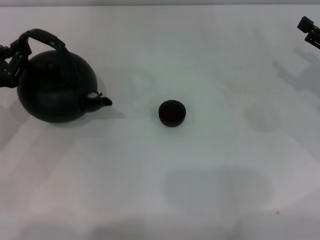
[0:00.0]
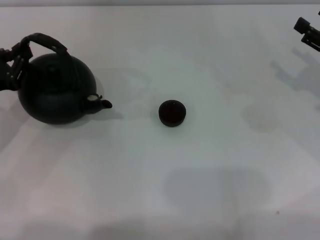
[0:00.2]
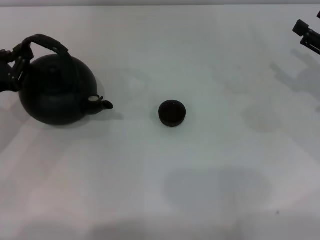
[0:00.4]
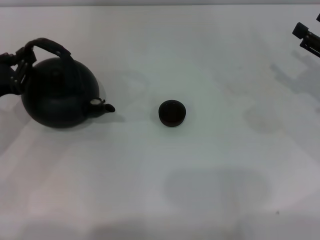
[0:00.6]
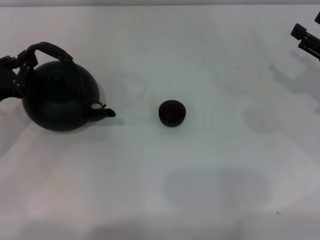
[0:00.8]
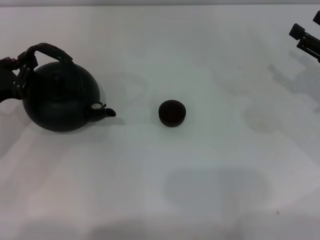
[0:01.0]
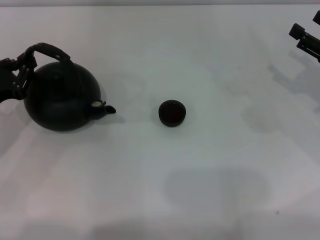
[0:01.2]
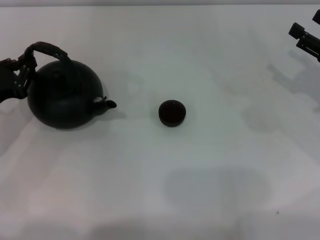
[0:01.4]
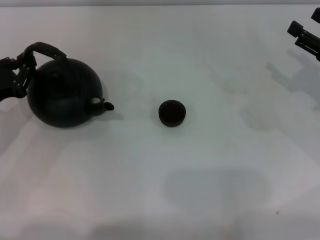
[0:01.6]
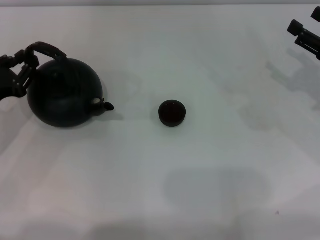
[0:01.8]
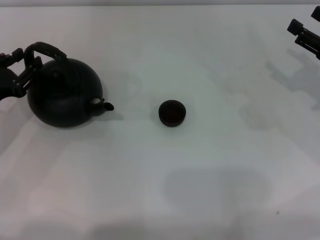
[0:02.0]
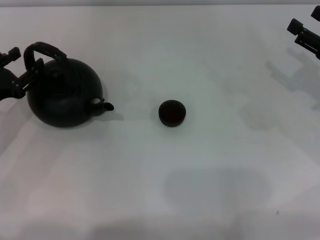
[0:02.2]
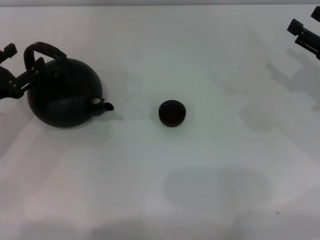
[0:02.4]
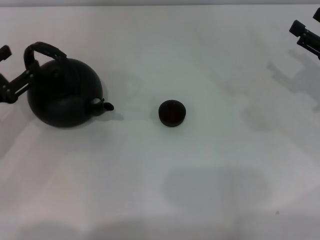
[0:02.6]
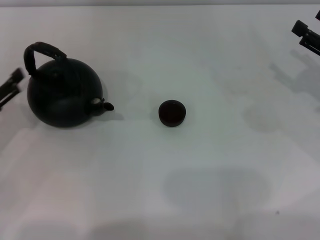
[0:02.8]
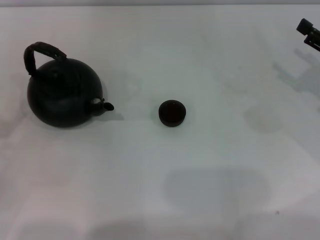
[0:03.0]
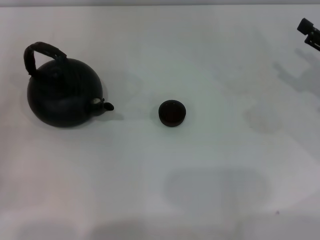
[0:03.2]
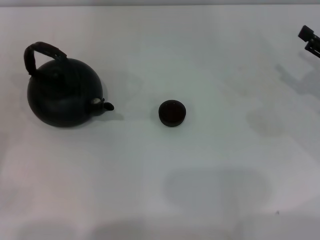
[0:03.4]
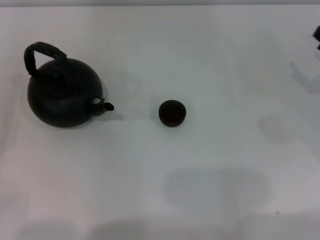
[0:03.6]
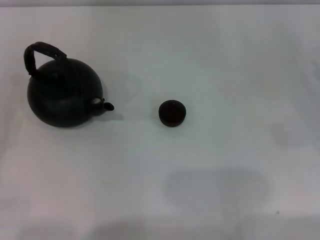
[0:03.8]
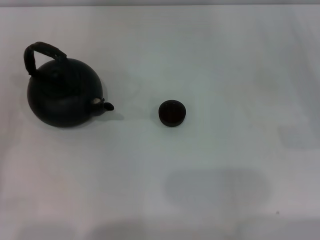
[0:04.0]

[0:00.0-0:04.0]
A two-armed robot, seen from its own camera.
Task of the whole recording: Grasp the handle of the teapot with one hand and pour tea into the teacup.
Step, 0.0 to 2.6 s: Put down the teapot with the left gripper.
0.0 to 1.4 s: The grippers stay close to where they were, moving slightly.
1.4 to 2.6 s: The left gripper opens.
2.6 to 4.0 s: The left gripper heads backward and to the left, covering roughly 15 cm, while the right gripper shifts by about 5 cm.

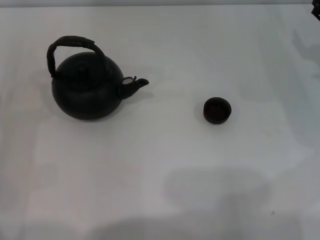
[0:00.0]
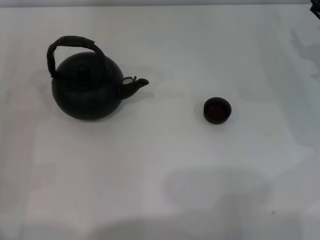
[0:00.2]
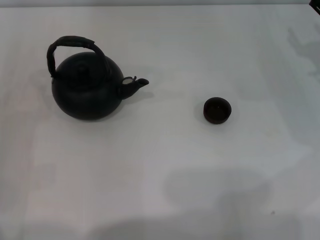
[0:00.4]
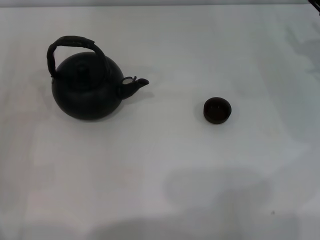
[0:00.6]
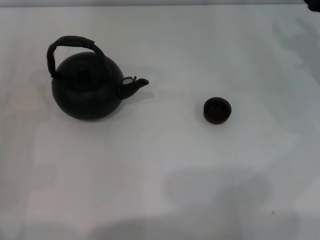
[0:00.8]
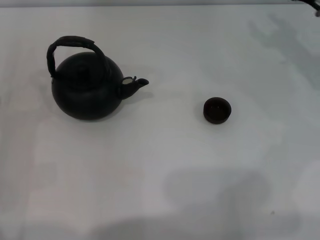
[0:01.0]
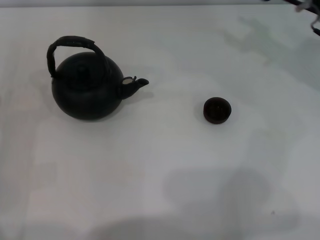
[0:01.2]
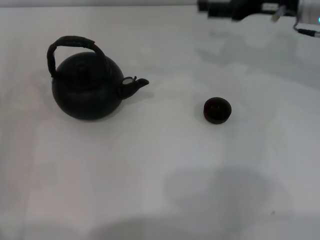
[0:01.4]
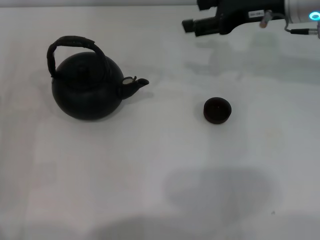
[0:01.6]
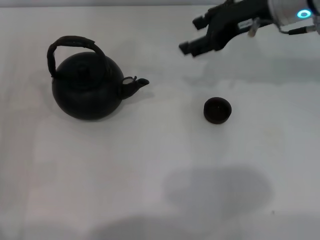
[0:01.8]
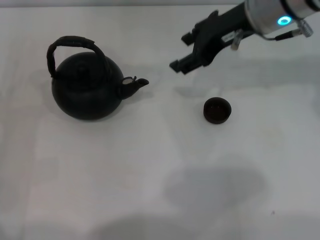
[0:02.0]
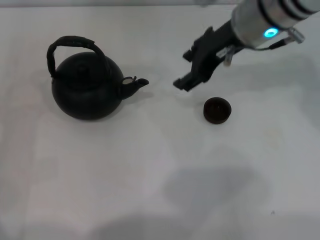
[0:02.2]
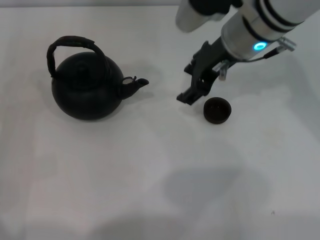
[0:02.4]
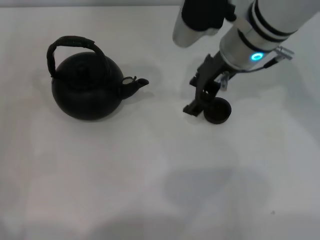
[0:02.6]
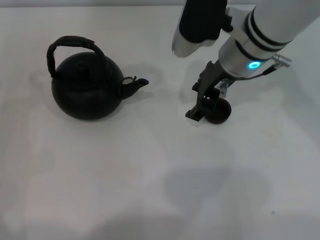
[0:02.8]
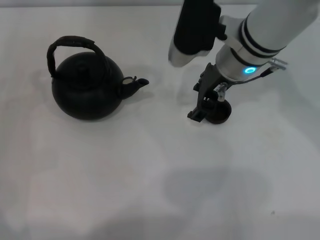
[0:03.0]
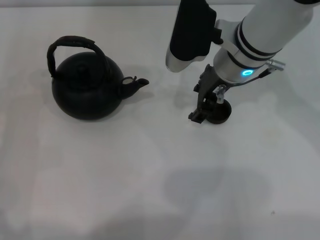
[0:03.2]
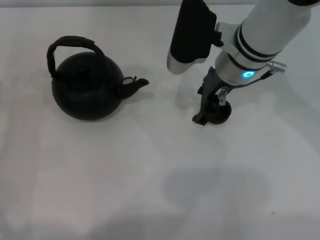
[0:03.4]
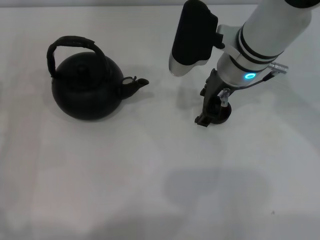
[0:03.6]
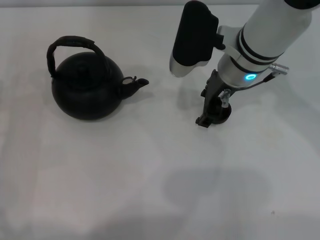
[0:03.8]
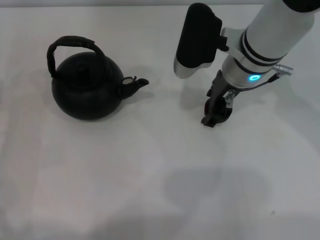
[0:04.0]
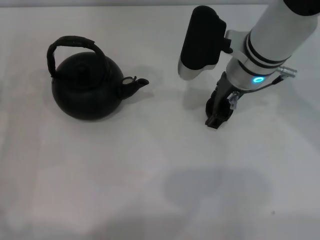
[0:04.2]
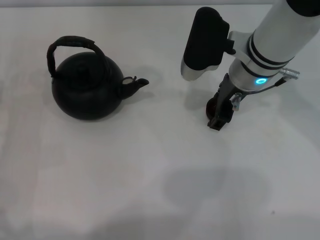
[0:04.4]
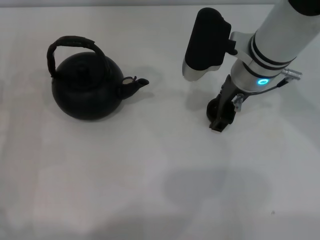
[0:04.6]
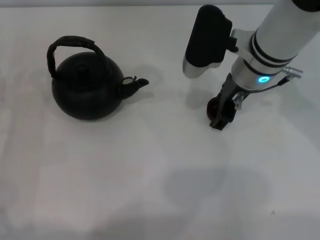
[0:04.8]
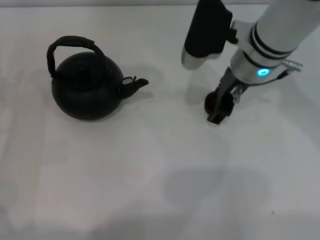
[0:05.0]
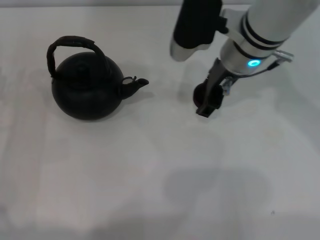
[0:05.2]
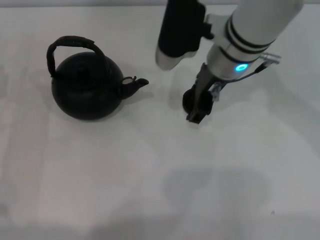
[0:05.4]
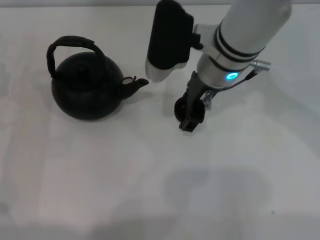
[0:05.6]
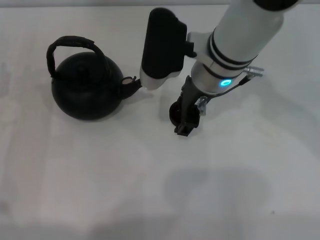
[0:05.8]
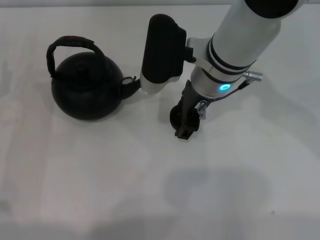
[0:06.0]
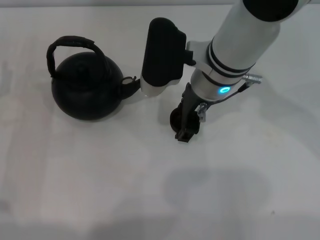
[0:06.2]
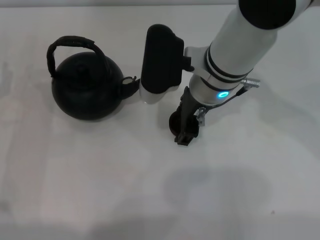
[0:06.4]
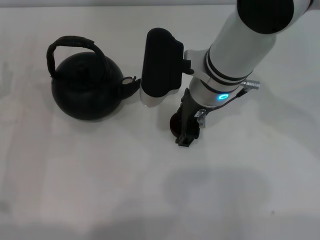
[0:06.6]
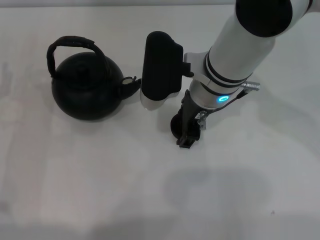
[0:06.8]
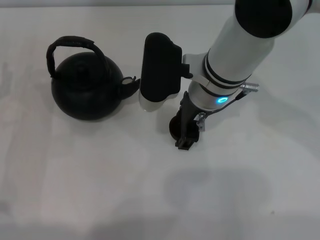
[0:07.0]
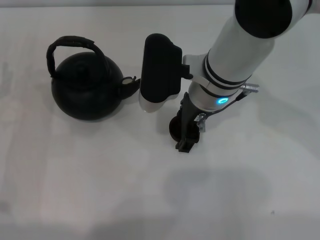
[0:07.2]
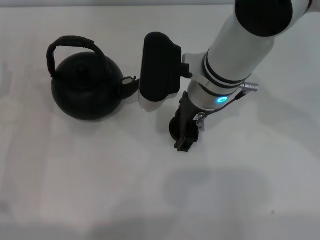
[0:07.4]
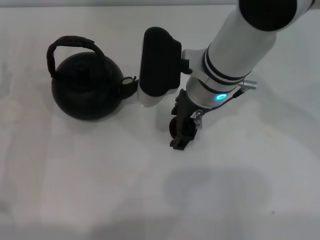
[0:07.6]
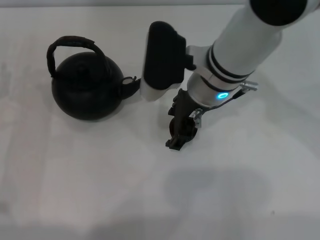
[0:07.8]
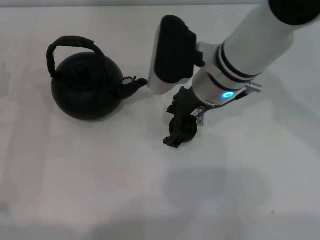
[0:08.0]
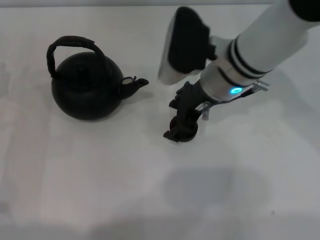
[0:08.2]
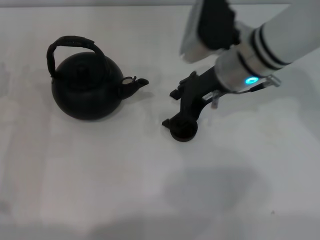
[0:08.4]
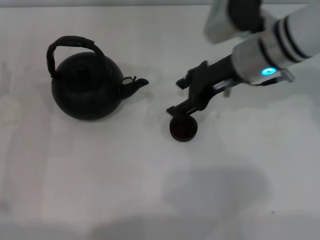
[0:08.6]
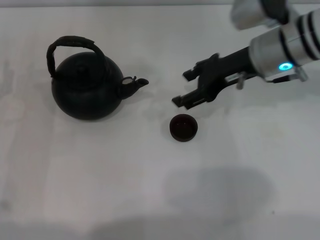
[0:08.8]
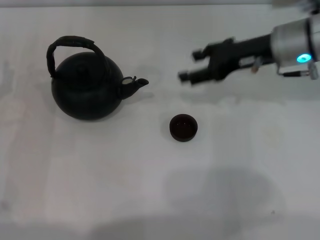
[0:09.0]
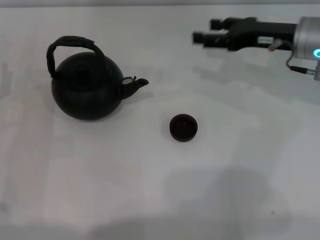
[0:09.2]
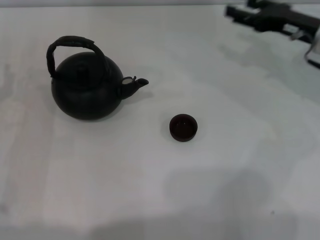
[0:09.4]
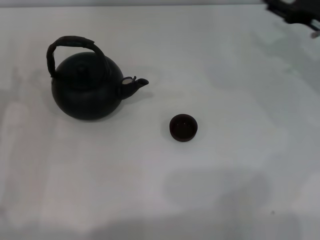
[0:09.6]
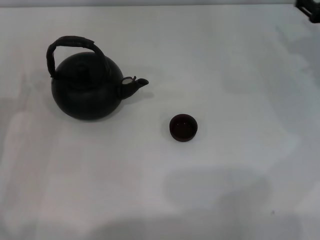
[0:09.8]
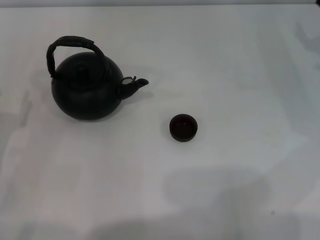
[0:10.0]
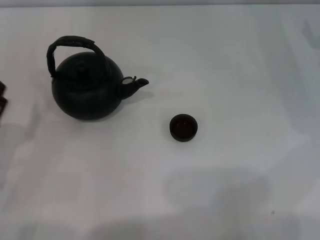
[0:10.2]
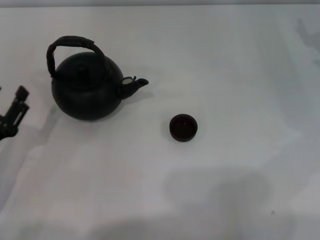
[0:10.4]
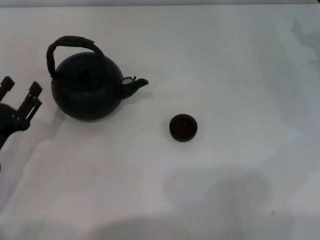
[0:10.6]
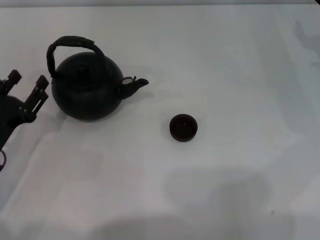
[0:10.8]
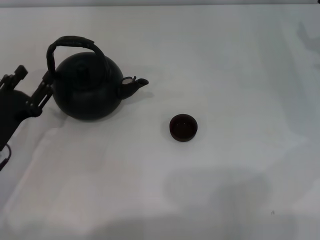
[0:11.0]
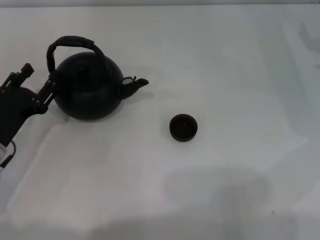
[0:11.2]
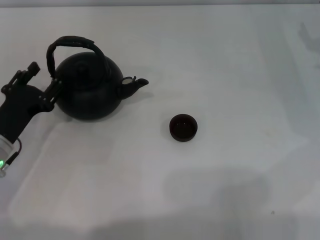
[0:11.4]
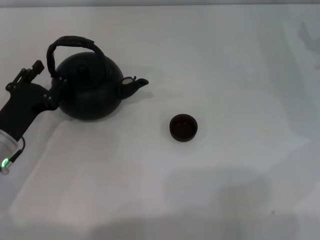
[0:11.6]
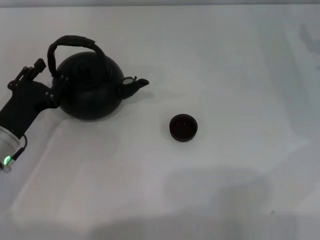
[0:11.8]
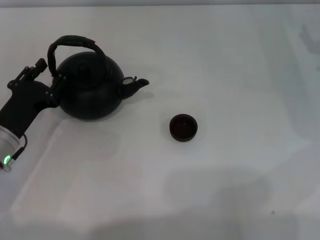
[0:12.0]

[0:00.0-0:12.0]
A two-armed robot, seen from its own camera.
Task of the whole recording: Grasp the handle of the teapot with one hand and pour tea into the teacup.
Step, 0.0 to 4.8 s: Pick up the teacup with the right gripper.
Step, 5.0 to 8.2 s: Place the teacup in the center of view with the right gripper.
0.0 to 1.6 s: The right gripper is displaced to the left, upward and forward by some 20 cm.
1.6 to 3.0 s: The right gripper goes roughly 10 cm to the left.
3.0 to 4.4 s: The grippers stay close to where they were, moving slightly.
4.4 to 6.0 s: The right gripper travels to the left by approximately 5 cm.
6.0 to 7.6 s: The grippers move only a little.
7.6 to 9.0 s: The right gripper travels to the right by some 15 cm.
9.0 to 10.4 s: The left gripper shifts approximately 5 cm backward. The right gripper moves to the right and downward, roughly 15 cm.
10.4 to 12.0 s: The left gripper is displaced forward by some 5 cm.

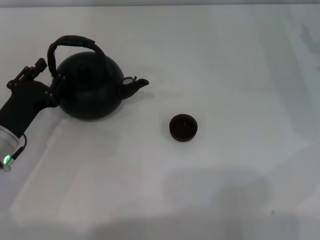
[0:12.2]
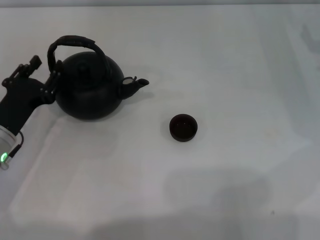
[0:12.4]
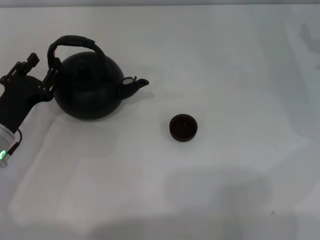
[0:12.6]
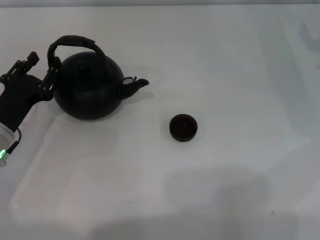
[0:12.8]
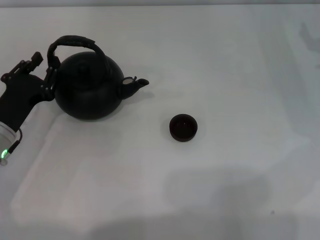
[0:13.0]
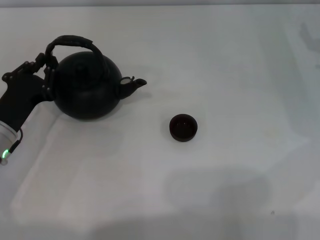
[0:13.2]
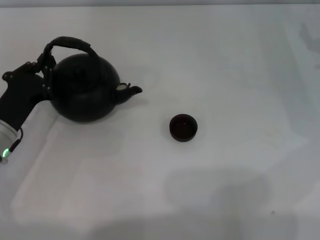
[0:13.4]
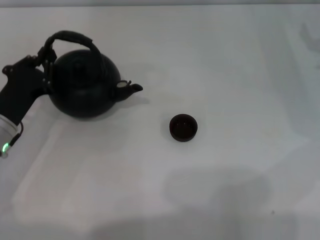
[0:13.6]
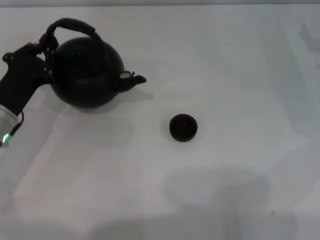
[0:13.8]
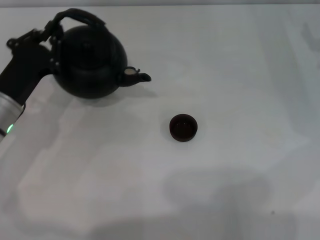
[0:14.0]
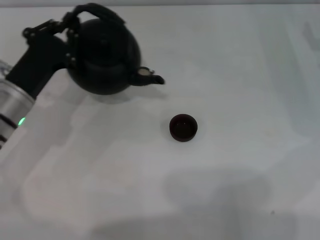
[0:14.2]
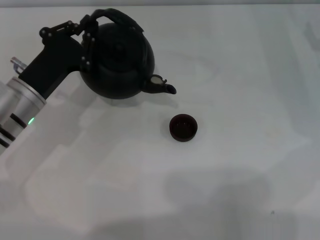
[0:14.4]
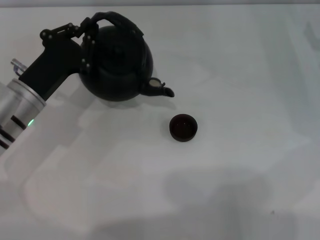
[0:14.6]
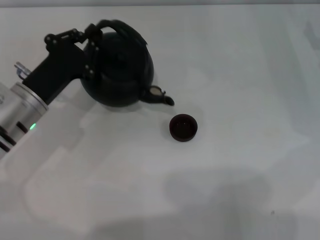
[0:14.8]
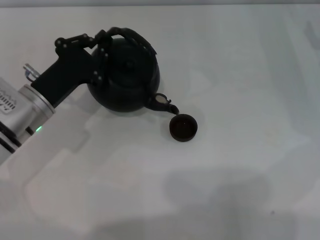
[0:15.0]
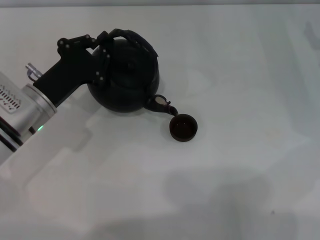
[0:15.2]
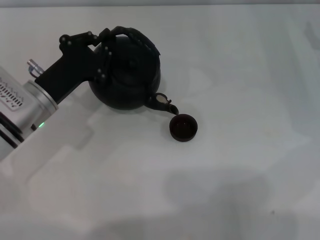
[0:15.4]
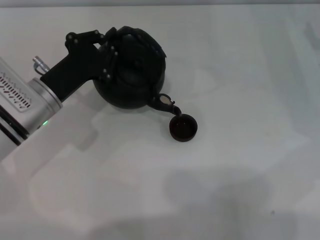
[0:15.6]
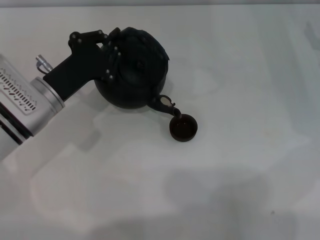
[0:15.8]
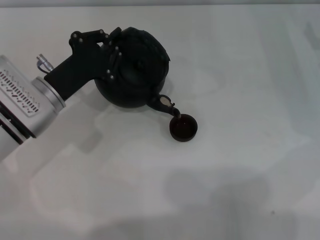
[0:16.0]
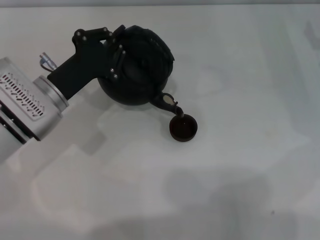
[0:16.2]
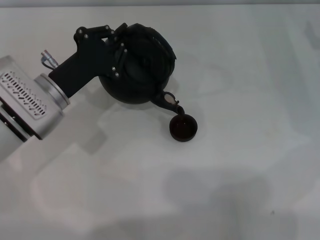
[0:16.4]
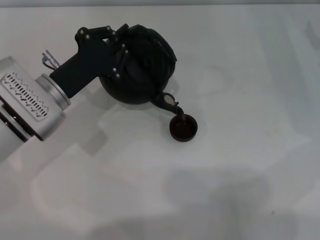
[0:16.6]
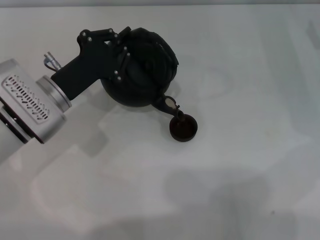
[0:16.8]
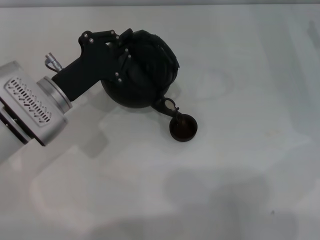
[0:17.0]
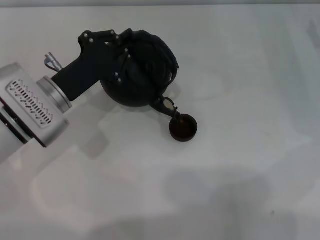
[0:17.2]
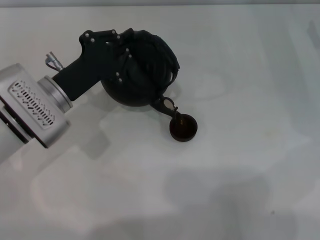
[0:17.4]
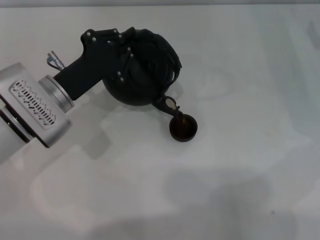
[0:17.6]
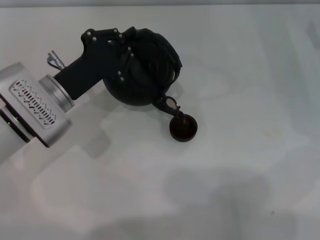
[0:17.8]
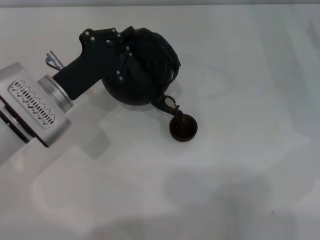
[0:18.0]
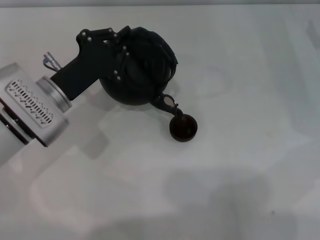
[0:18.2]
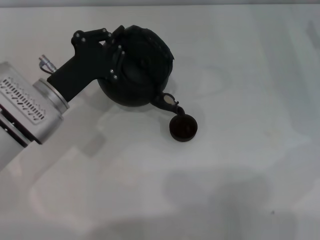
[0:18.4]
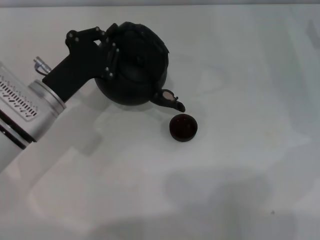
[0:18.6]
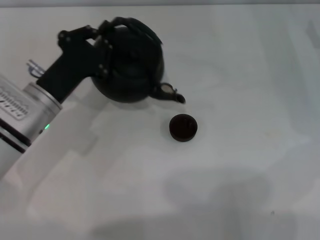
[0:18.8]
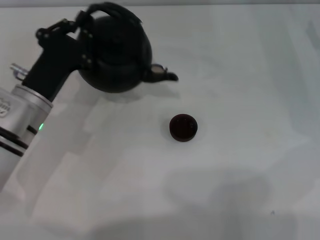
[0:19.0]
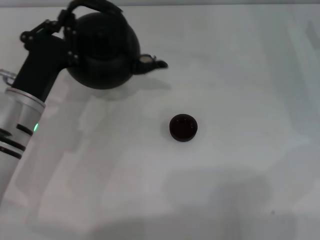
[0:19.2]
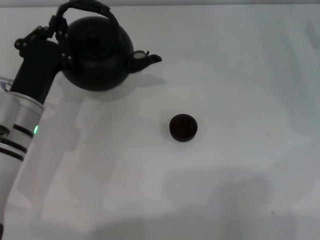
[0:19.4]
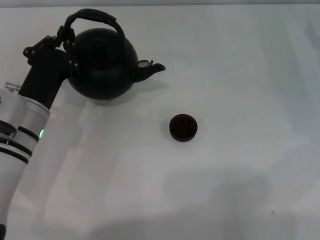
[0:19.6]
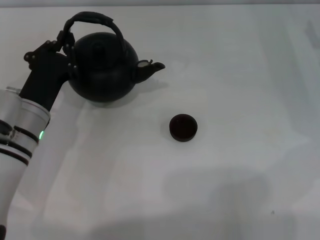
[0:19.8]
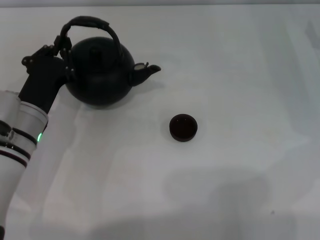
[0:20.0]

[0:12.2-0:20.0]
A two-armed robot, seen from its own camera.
Task of the whole recording: Grasp the handle of the teapot with one hand and pour tea into the teacup.
Step, 14.2 to 19.2 s: Pour tea into the teacup with the left gripper.
12.2 to 13.8 s: The left gripper closes up.
13.8 to 15.4 s: The left gripper ends up approximately 5 cm from where it was.
15.4 to 16.8 s: The grippers stay close to where they were, moving slightly.
16.8 to 18.4 s: Neither gripper changes place.
